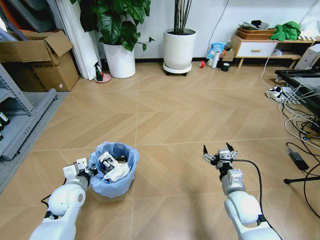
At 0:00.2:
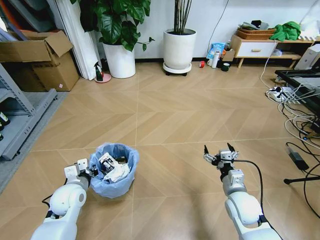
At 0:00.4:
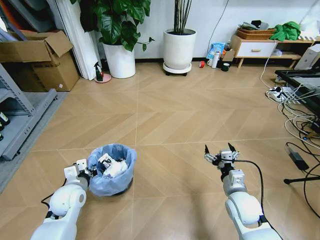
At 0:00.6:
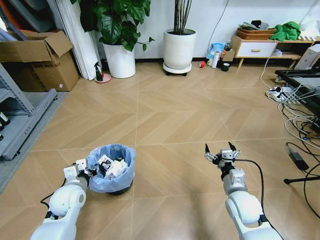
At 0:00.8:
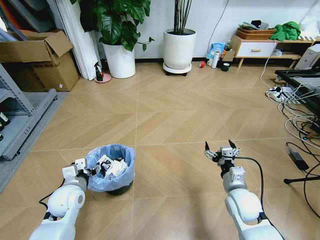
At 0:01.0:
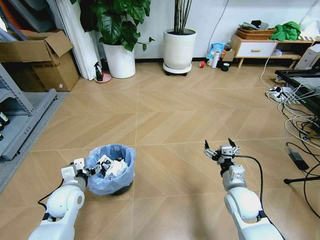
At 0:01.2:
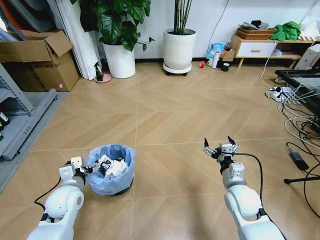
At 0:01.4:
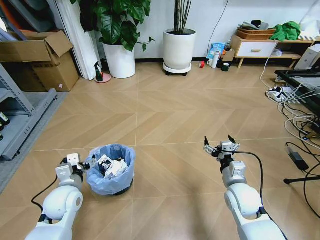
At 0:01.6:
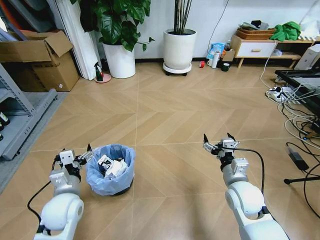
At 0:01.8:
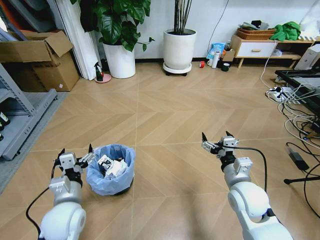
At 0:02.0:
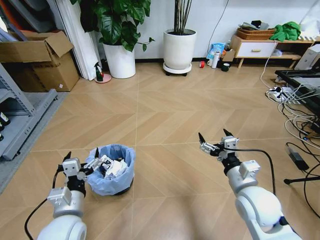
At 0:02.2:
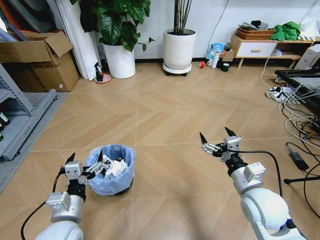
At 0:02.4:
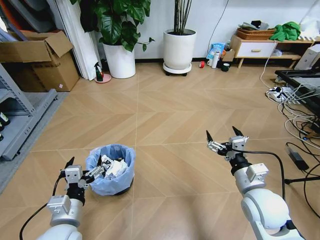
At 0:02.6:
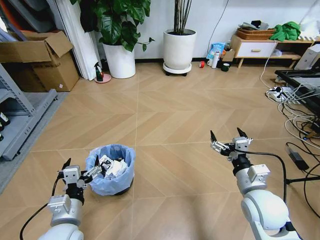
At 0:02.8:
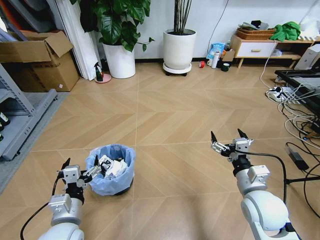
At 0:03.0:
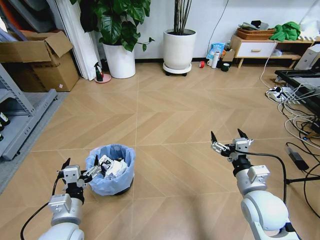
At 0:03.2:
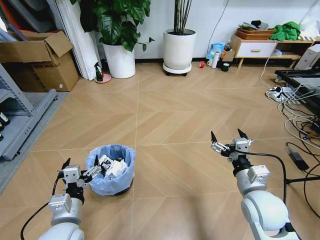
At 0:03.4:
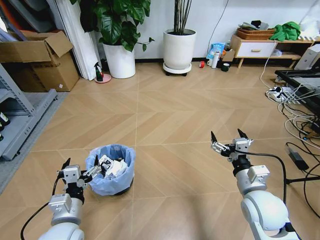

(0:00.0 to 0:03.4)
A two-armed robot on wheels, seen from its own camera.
Task of the whole recording: Pick up the trash bin and place the garbage on the floor into it.
0:00.0 - 0:01.6: The left gripper ends up roughly 5 cm from where it was, and opens its fingers.
0:01.6 - 0:03.4: The left gripper moves backward, some 10 cm. Meanwhile the right gripper ends up roughly 5 cm from where it was.
